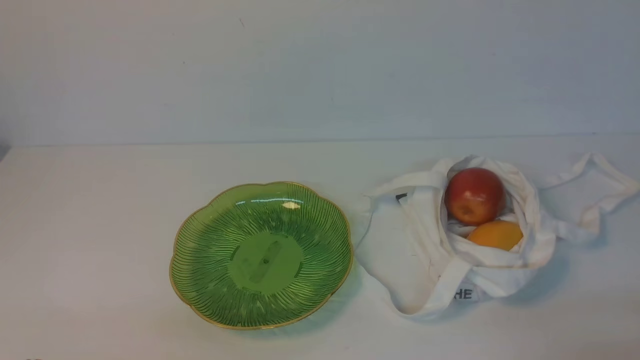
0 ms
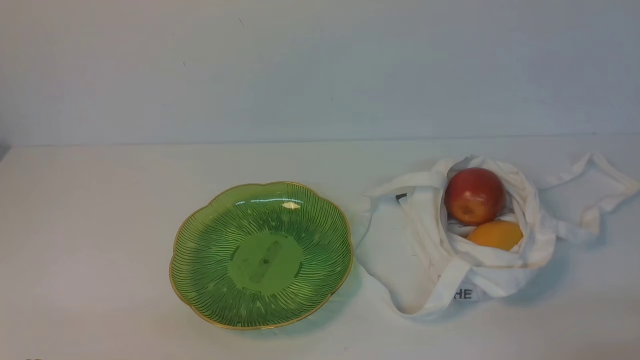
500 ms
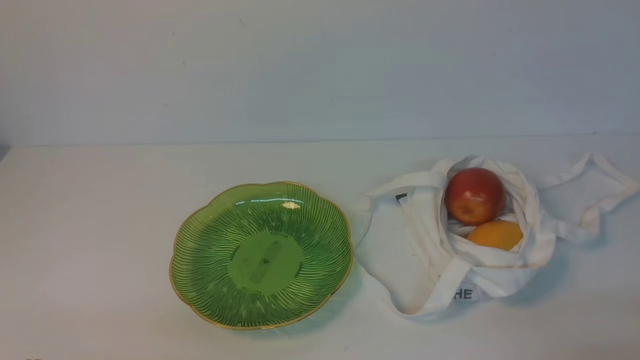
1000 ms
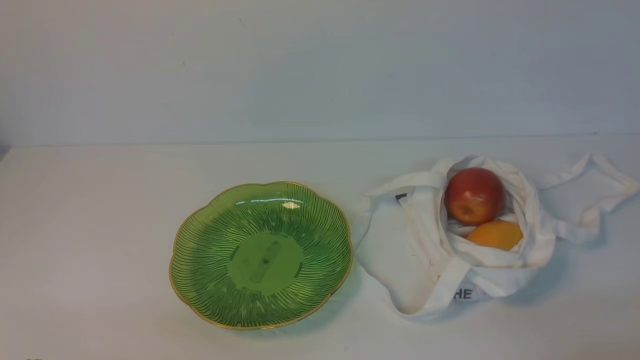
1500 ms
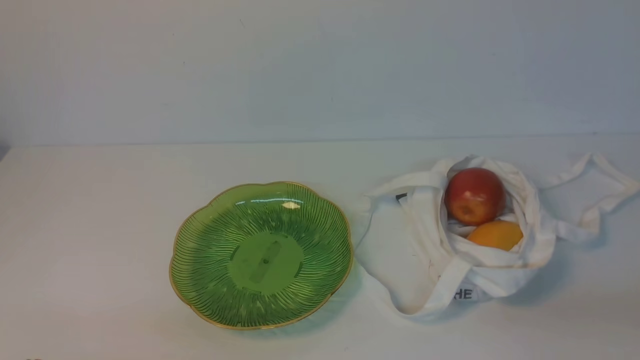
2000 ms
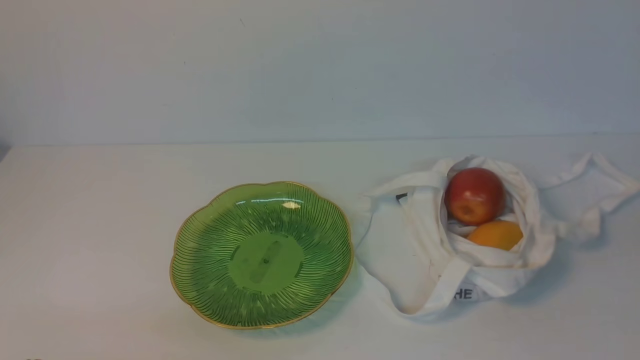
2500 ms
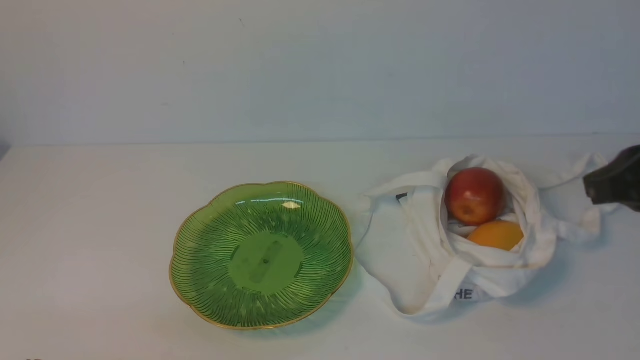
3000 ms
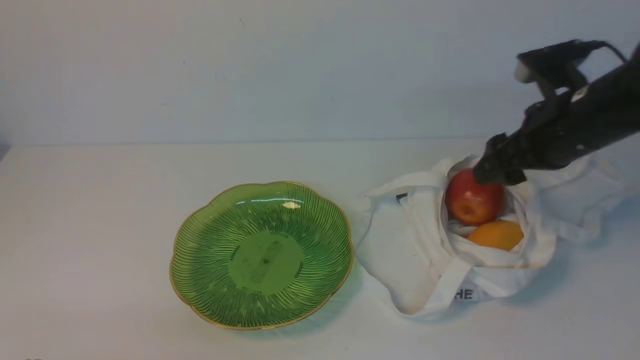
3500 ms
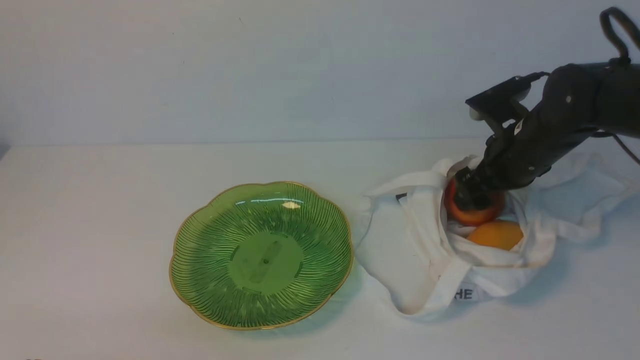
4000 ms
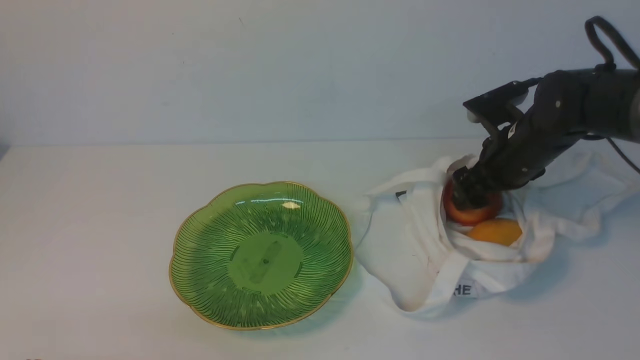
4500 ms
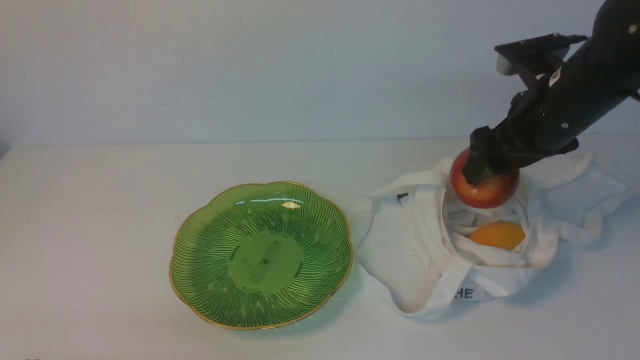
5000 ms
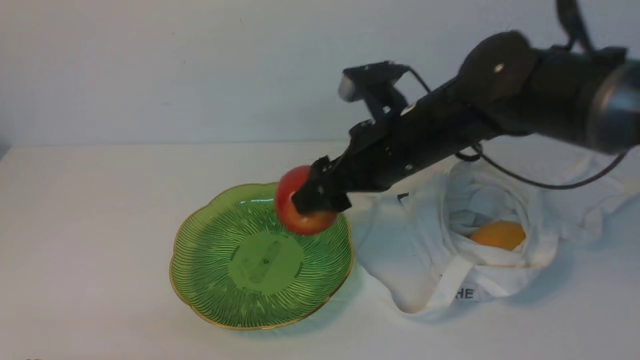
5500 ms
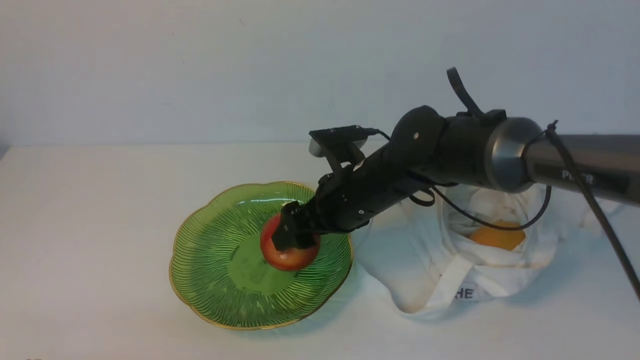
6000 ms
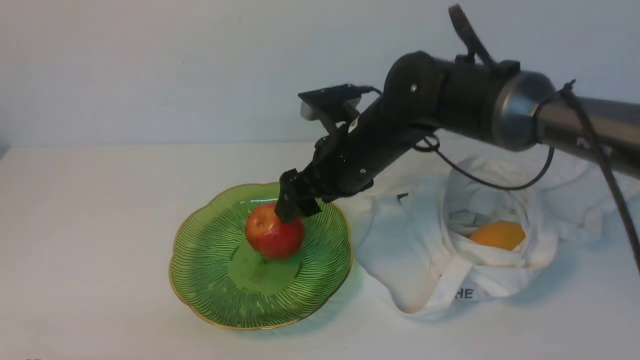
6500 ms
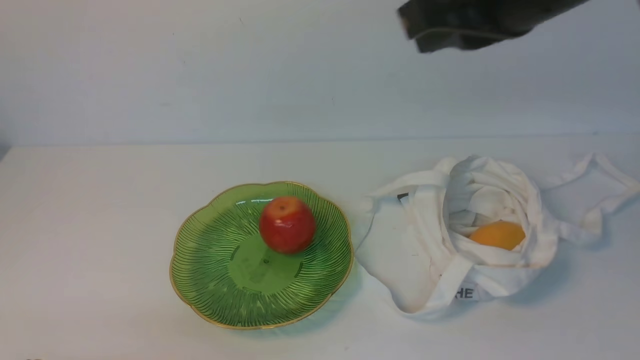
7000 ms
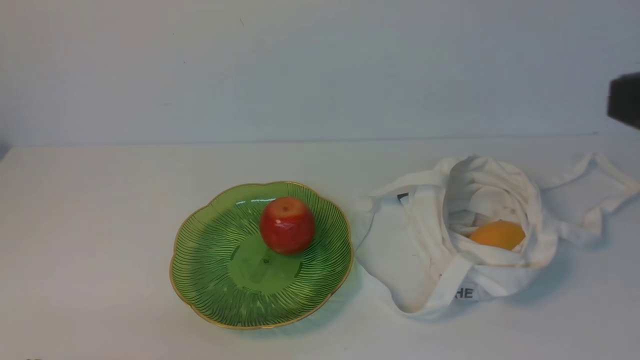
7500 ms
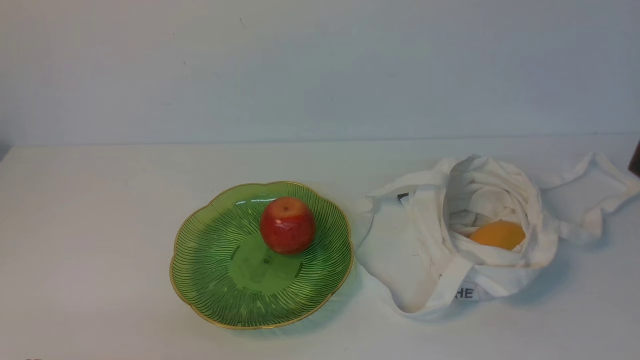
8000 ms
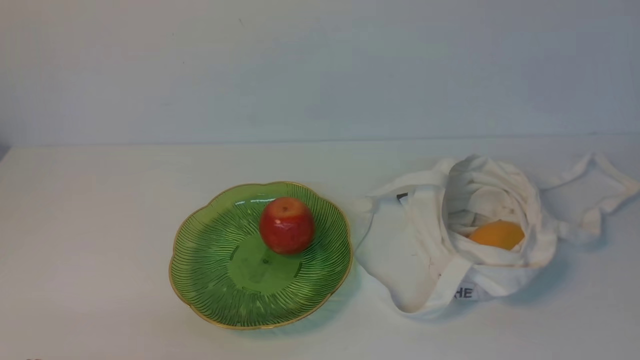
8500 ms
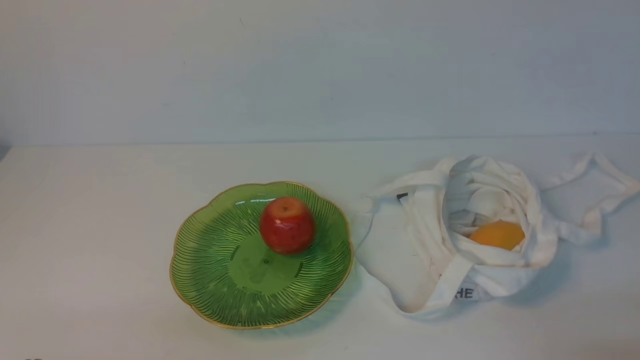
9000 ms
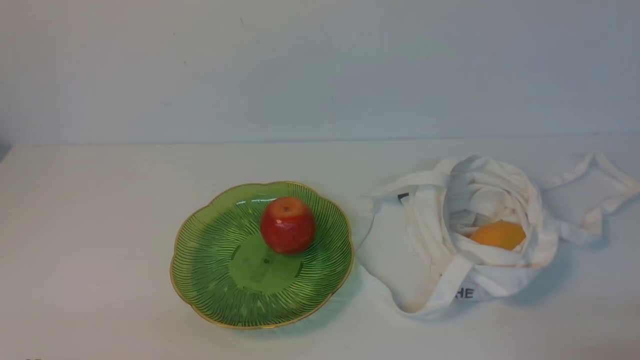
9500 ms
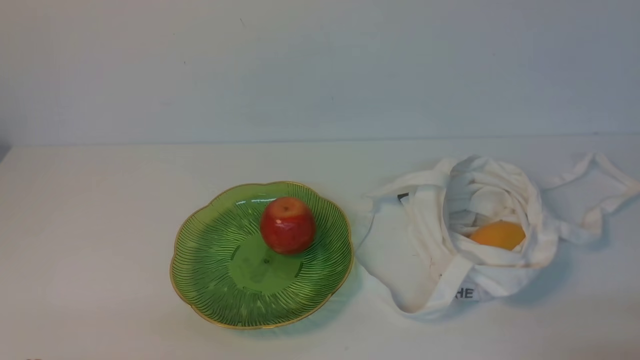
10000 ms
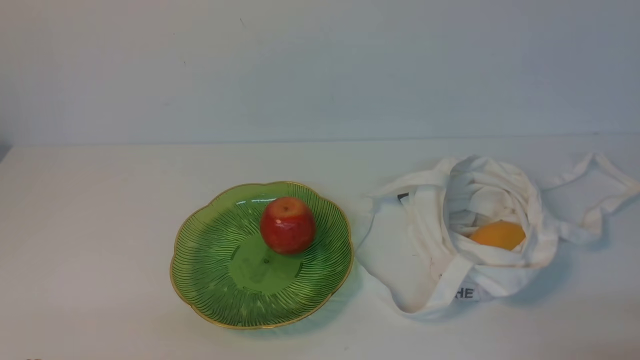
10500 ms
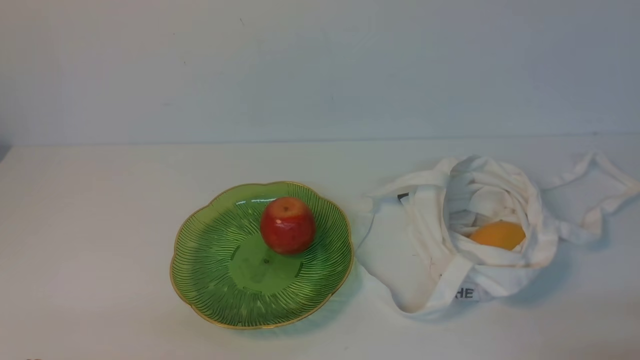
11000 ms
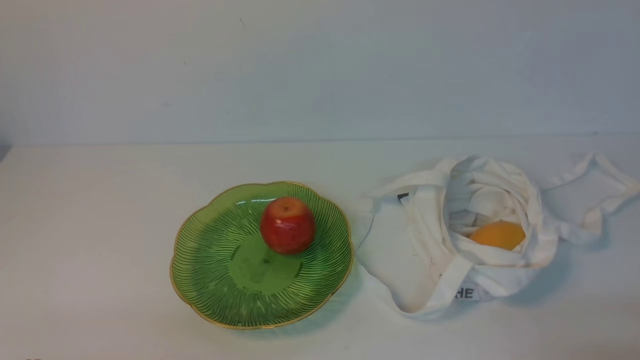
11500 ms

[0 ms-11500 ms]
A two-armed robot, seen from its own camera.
Step, 0 ms to 4500 ms: use the right arm to grab an apple from the bag.
Step, 5000 ms to 6000 ms: use the right arm to put the apple into the empty plate on the left.
2000 ms to 4000 ms: The right gripper is displaced forward by approximately 35 cm, and opens its fingers.
4000 ms to 6000 ms: The right gripper is displaced to the left by some 20 cm.
6000 ms to 7500 ms: The right gripper moves upward, backward and to the right, about 35 cm, and closes its fingers.
7500 ms to 9500 ms: The right gripper travels downward by approximately 25 cm.
9500 ms to 11500 ms: Neither gripper changes place.
